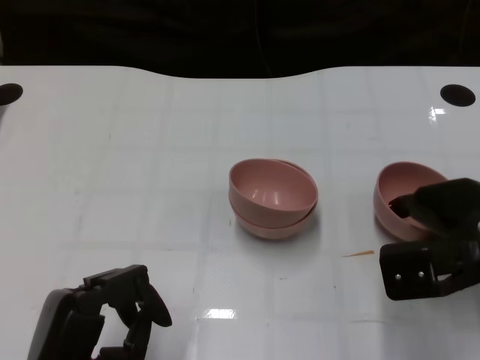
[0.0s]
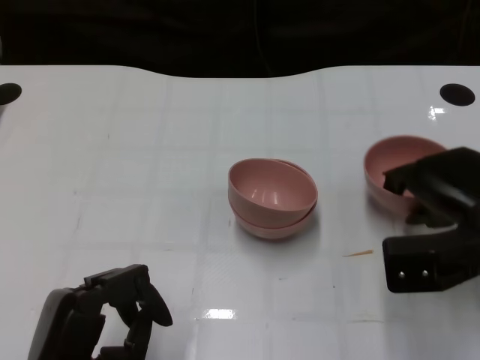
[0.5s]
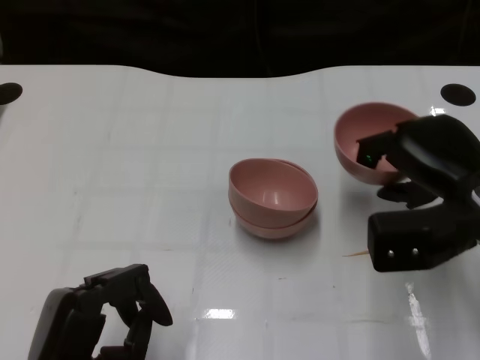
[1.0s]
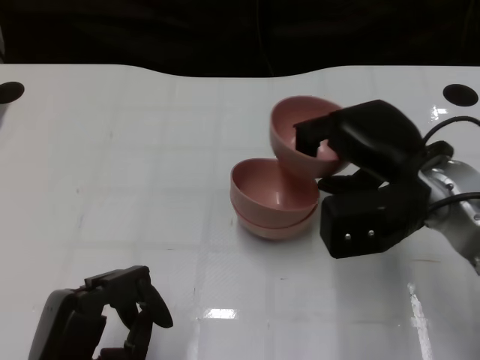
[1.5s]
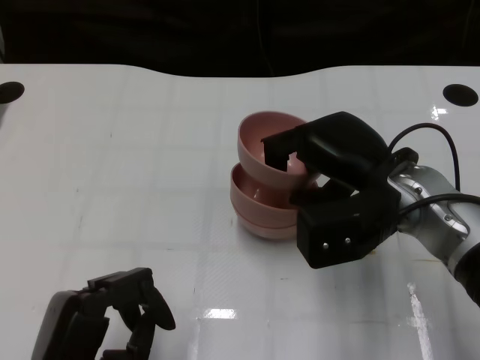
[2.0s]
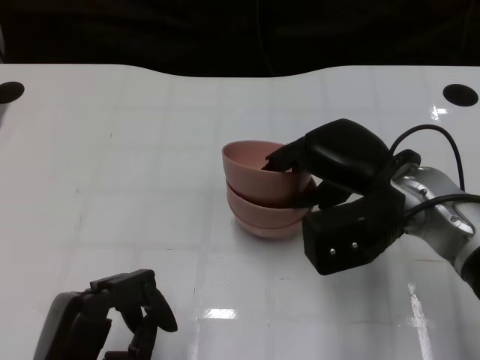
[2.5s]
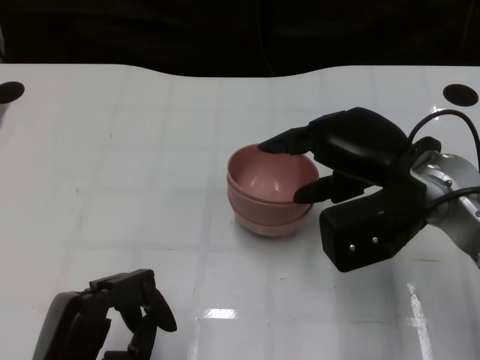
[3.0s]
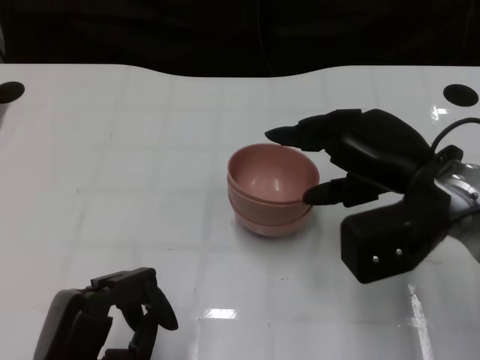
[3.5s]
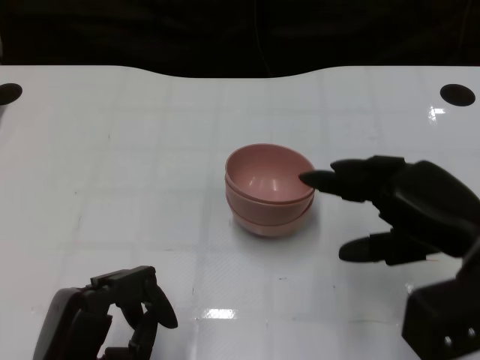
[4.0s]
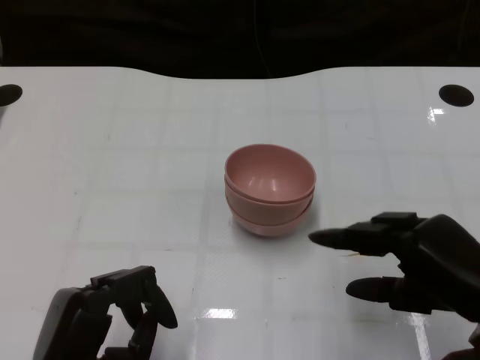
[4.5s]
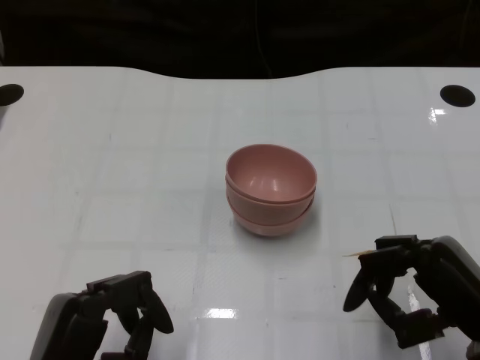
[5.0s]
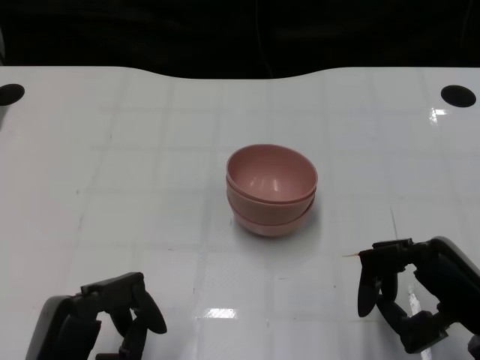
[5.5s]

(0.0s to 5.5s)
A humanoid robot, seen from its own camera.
Task of the whole recording: Pick up the bowl on one side of the table and place it on top of the middle bowl, then pick up the bowl on the other side of the table and place it on top of the middle bowls.
Step, 0.5s - 3.5s: Place the bowl on the right onto the bowl in the middle with right gripper.
0.0s - 2.0s: The right hand moves to the left, some 10 cm.
2.0s - 3.5s: The hands move only a little.
3.5s - 5.5s: The right hand heads backward, downward and to the right, covering approximately 15 cm.

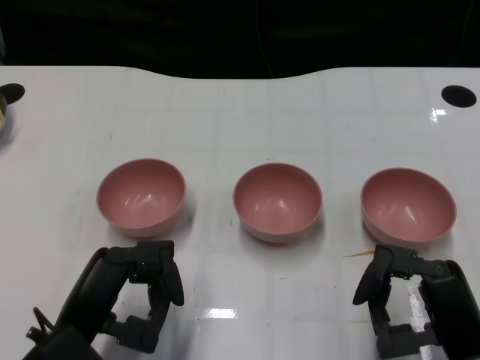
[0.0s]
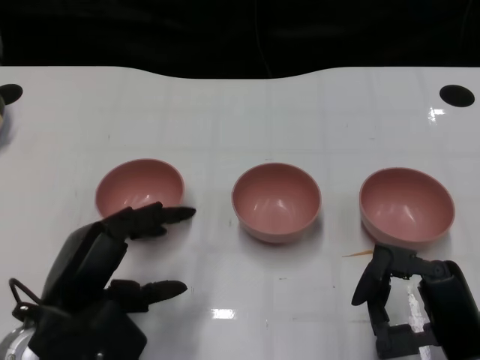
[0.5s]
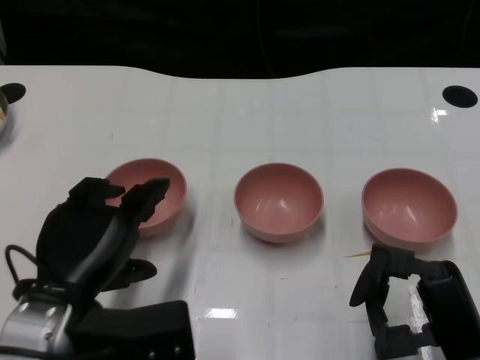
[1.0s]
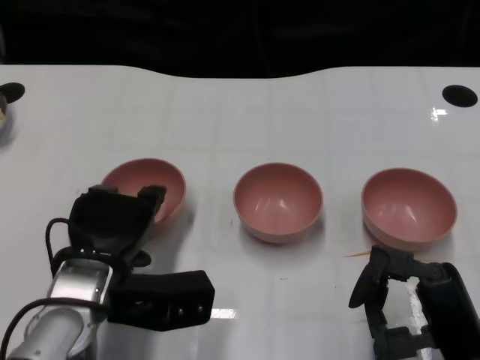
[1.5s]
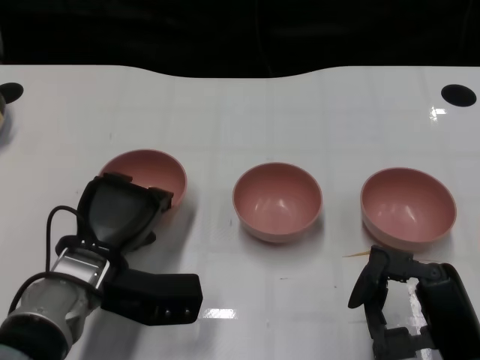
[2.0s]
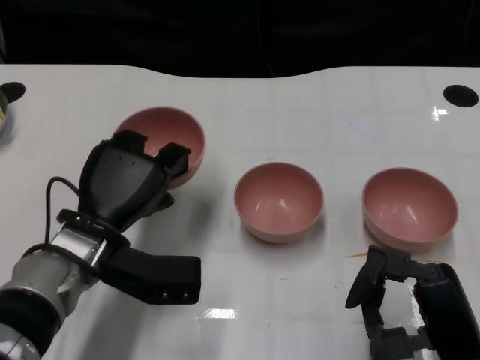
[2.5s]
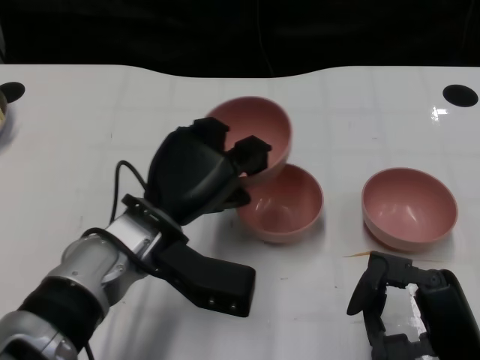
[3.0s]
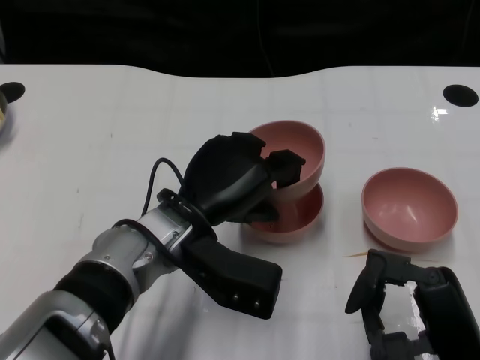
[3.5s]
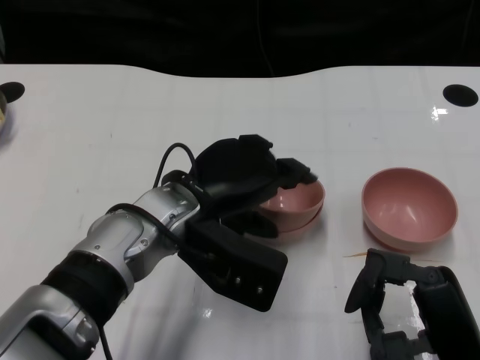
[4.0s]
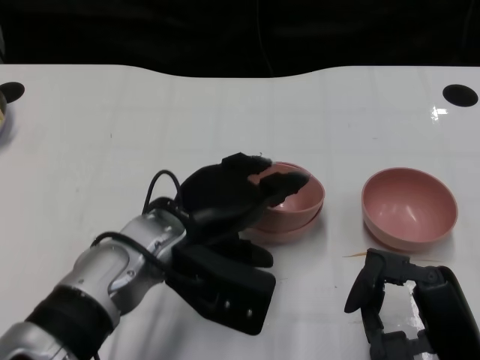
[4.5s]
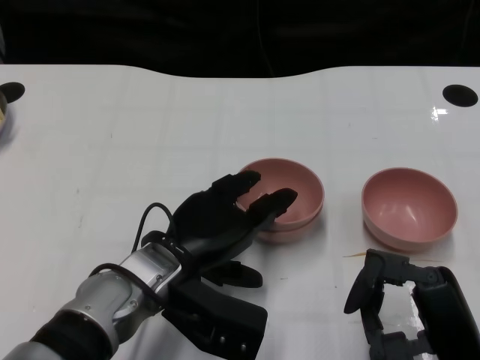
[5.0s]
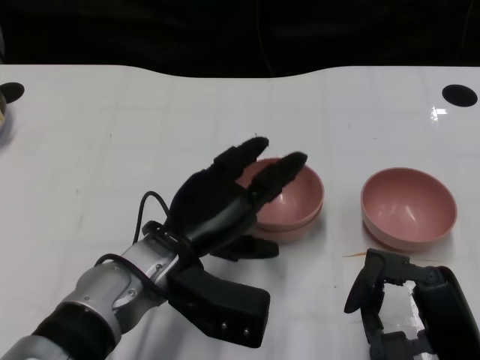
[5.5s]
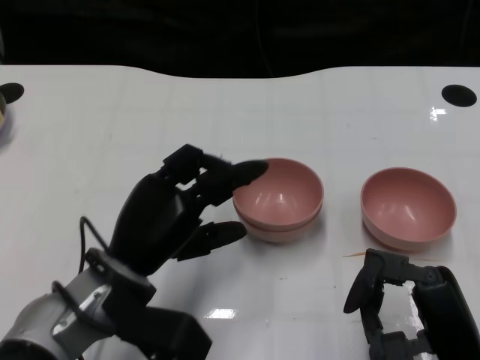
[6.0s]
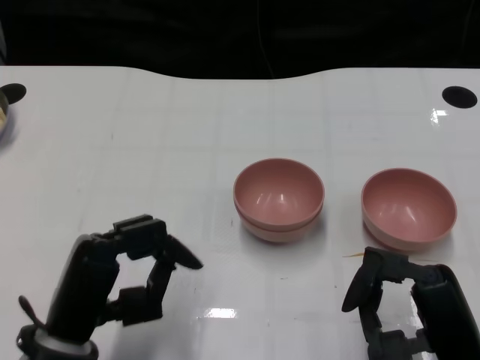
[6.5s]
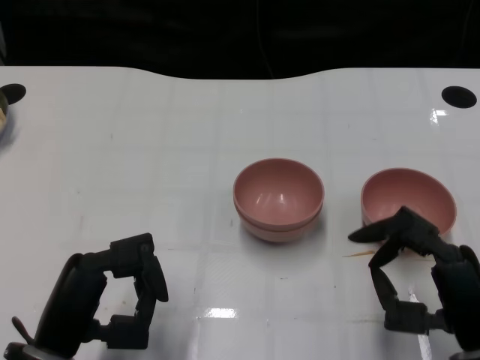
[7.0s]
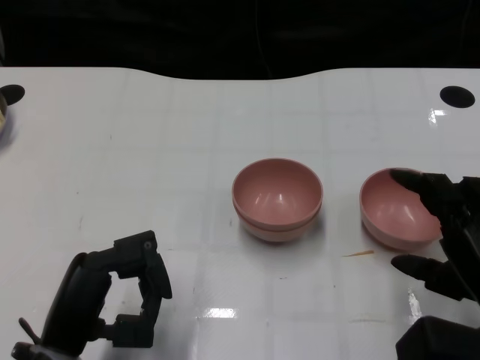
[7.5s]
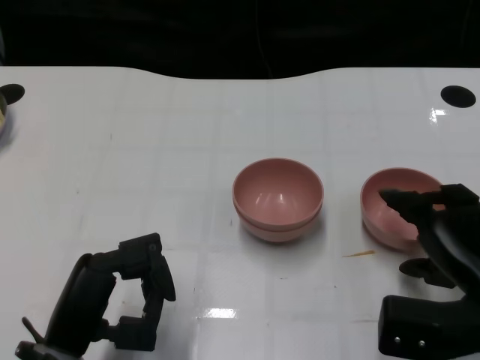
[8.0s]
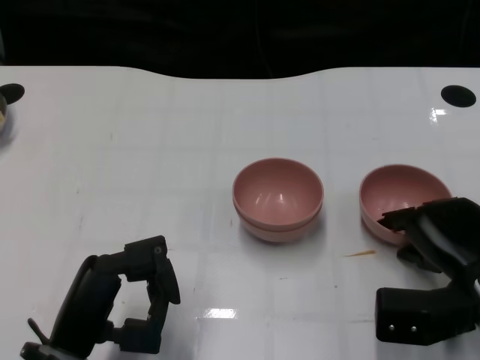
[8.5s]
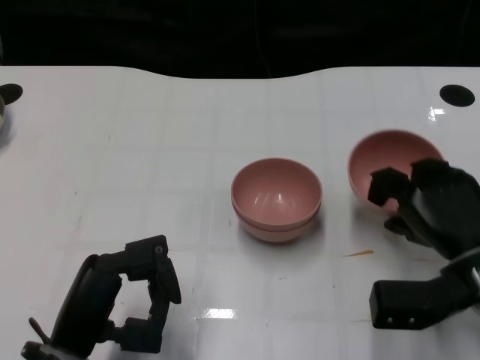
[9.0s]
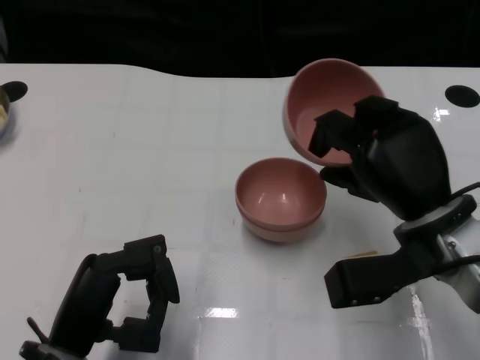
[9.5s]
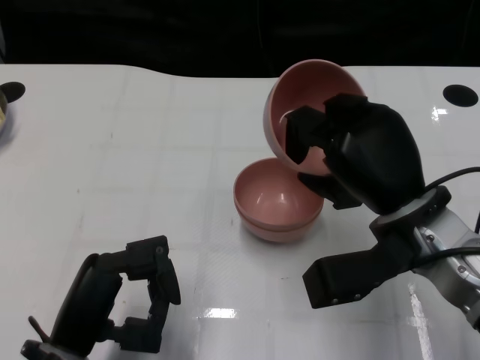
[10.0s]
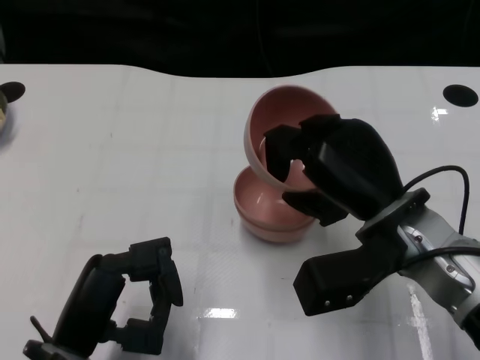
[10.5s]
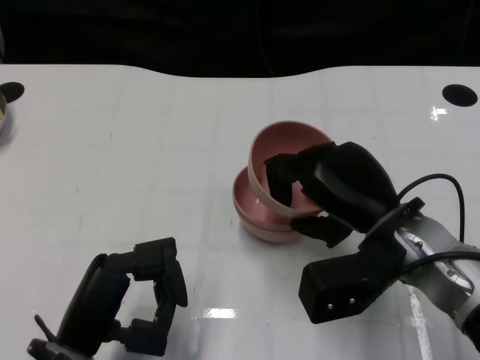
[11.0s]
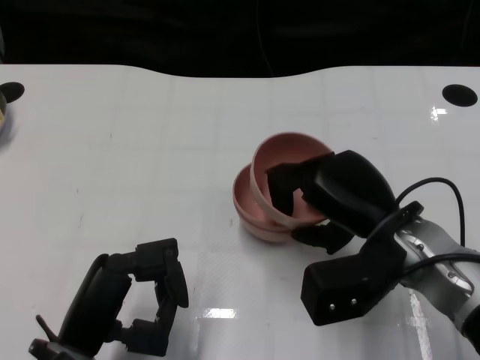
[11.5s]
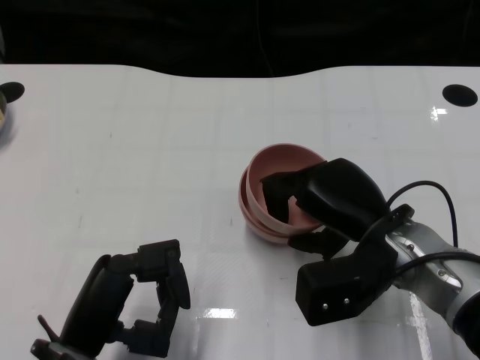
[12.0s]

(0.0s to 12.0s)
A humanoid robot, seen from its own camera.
Task of the whole recording: Pick up the bowl on one side of the table and place it on top of the middle bowl, then pick up the bowl on the other side of the table and place it on top of the middle bowls.
Step, 0.0s - 2.0s: Grasp the bowl on the left with the left gripper.
Step, 2.5s - 5.5s: Place the bowl on the left onto the bowl in the middle with left gripper.
Step, 6.0s - 8.5s: Grasp the bowl on the right with the right gripper.
2.0s - 4.0s: The left hand shifts approximately 10 cm to the right and upward.
4.0s - 6.0s: The left hand travels to the left by approximately 5 cm.
6.0s - 8.0s: The right hand shifts about 5 cm forward; the left hand shifts some 10 cm backward and to the left.
8.0s - 10.0s: The right hand is displaced to the left and forward by about 10 cm.

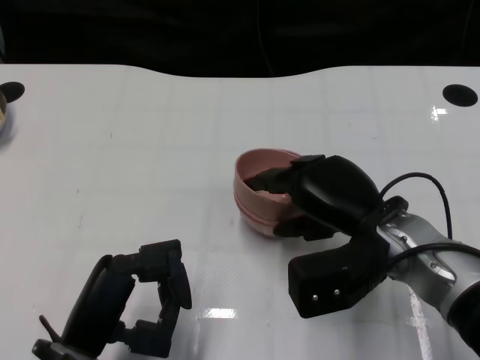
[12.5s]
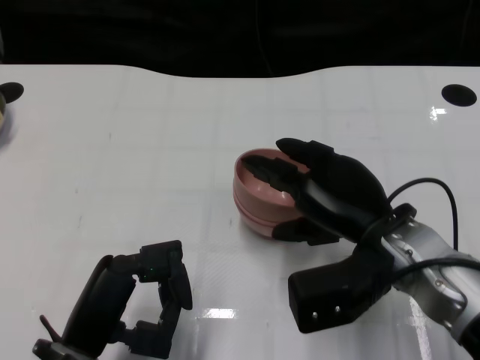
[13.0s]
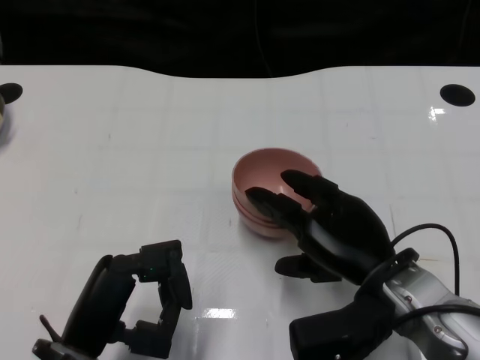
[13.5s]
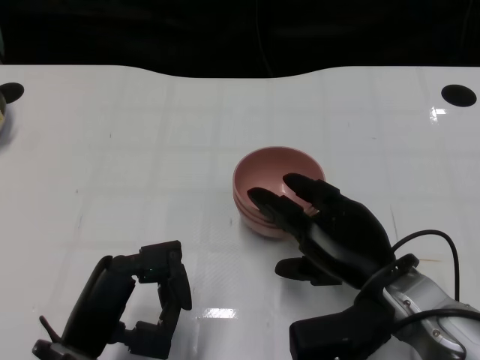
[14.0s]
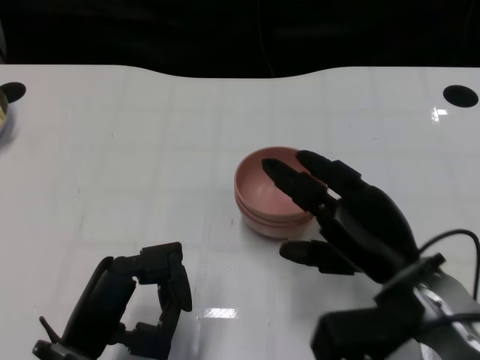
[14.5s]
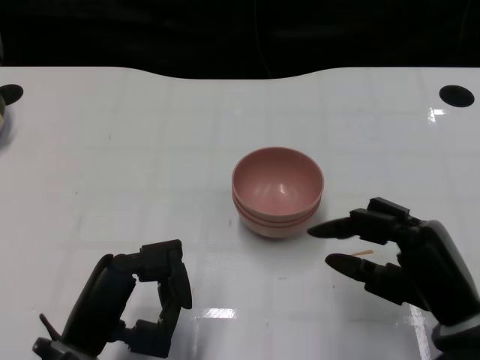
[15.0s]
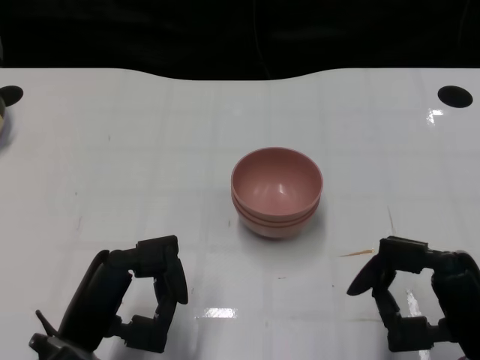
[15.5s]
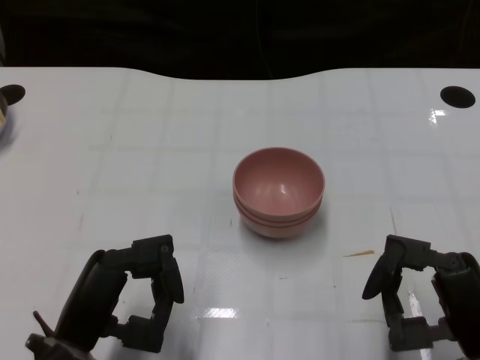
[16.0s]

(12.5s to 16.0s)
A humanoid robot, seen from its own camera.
Task of the whole recording: Pick up the bowl on one side of the table and place it on top of the middle bowl, then pick up the bowl on the other side of the table and place it on top of the middle bowls.
12.5s - 14.5s: The right hand changes place by about 5 cm.
14.5s - 16.0s: The right hand heads backward and to the right, covering about 10 cm.

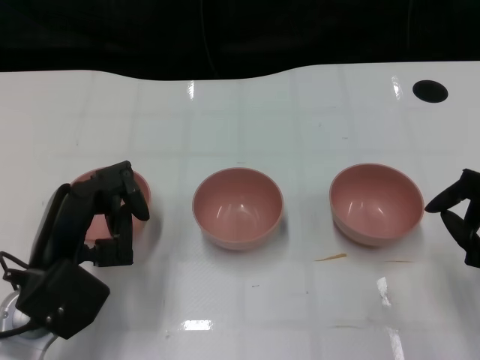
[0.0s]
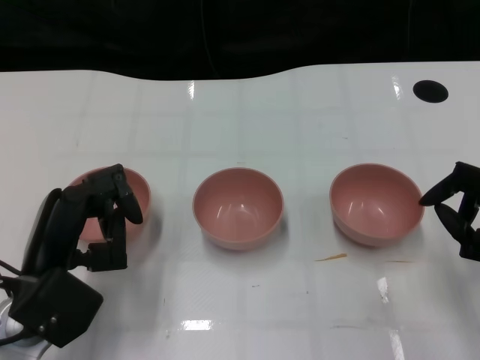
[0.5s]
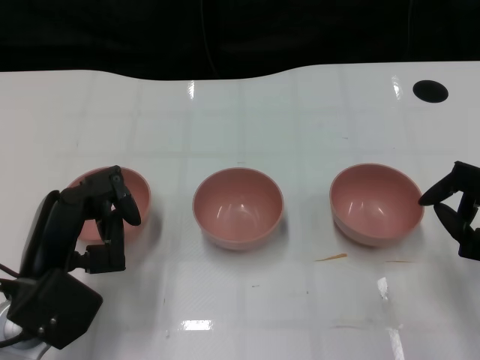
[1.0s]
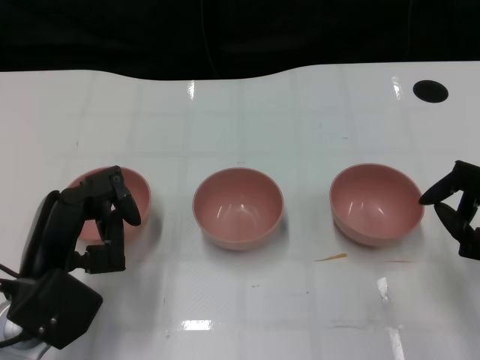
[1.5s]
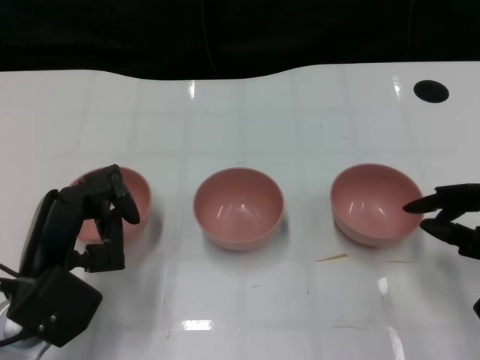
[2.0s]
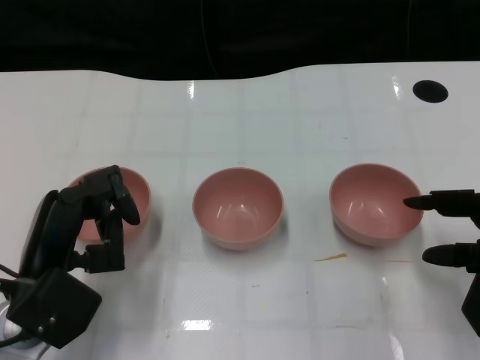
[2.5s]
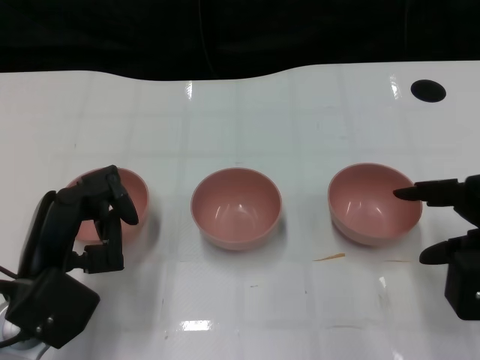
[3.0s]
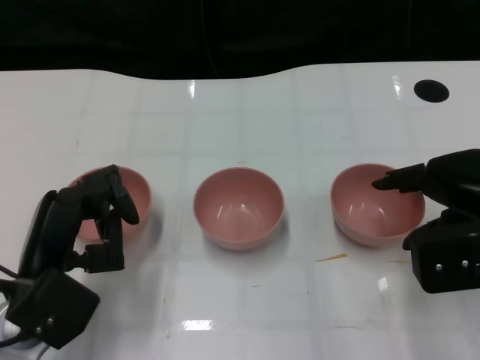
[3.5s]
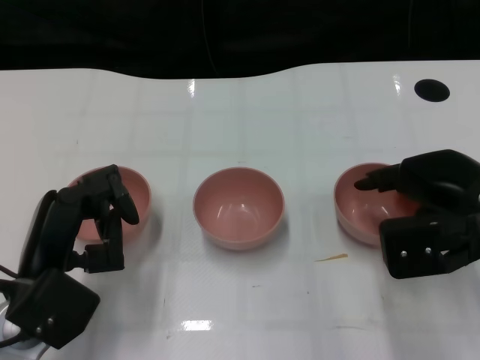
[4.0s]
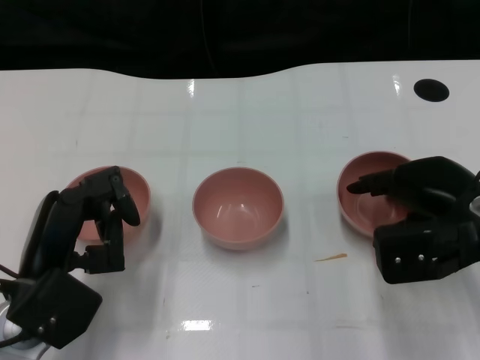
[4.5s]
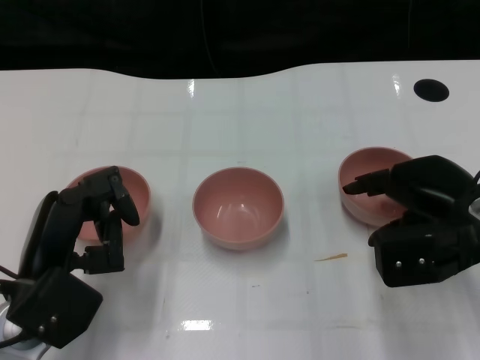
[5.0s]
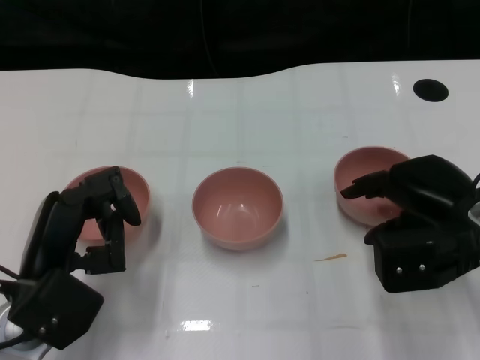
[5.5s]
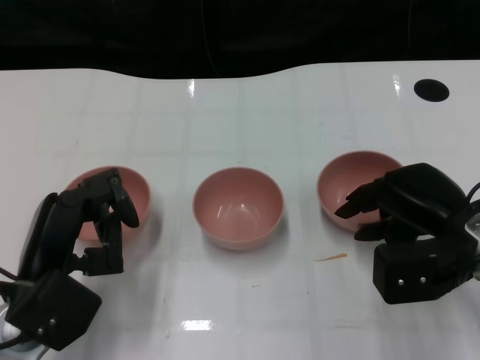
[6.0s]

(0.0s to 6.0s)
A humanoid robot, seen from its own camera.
Task of the whole recording: Pick up the bowl on one side of the table and place it on top of the middle bowl, then pick up the bowl on the other side of the table and place it on top of the middle bowls.
2.0s - 4.0s: The right hand travels to the left, forward and upward by approximately 10 cm.
4.0s - 6.0s: There are only small adjustments of the hands.
